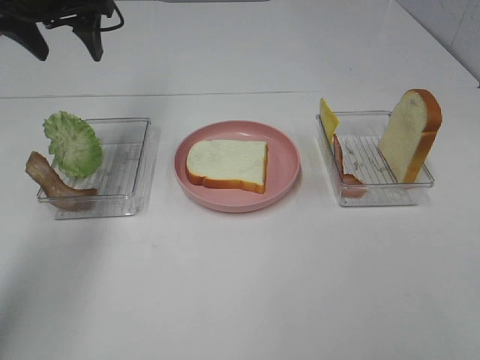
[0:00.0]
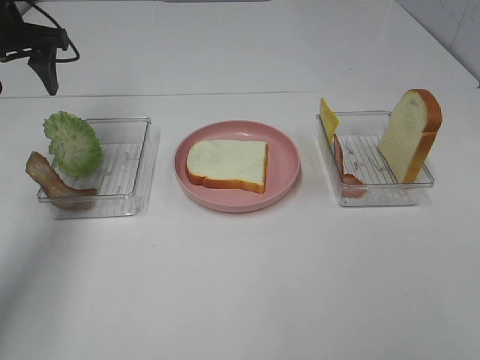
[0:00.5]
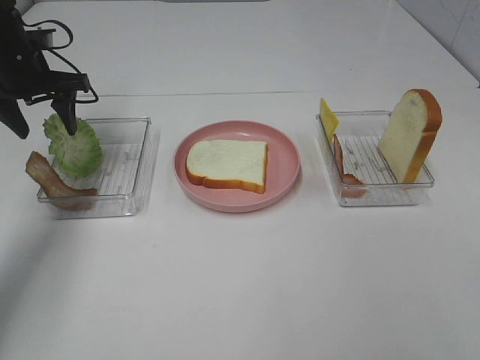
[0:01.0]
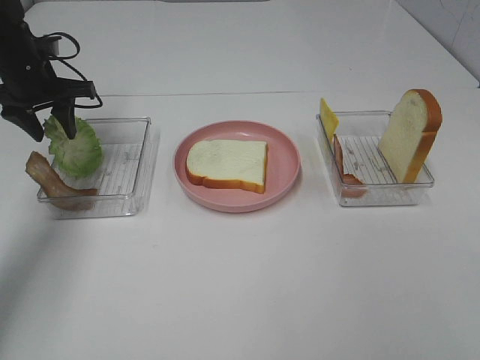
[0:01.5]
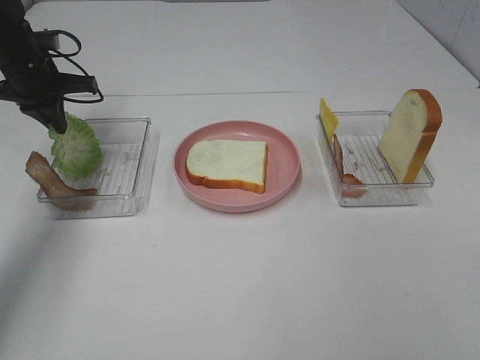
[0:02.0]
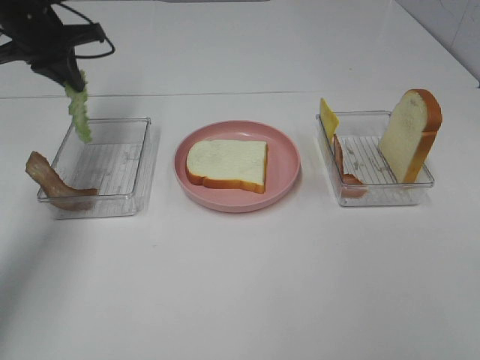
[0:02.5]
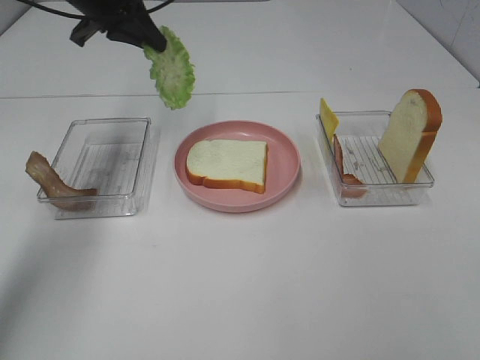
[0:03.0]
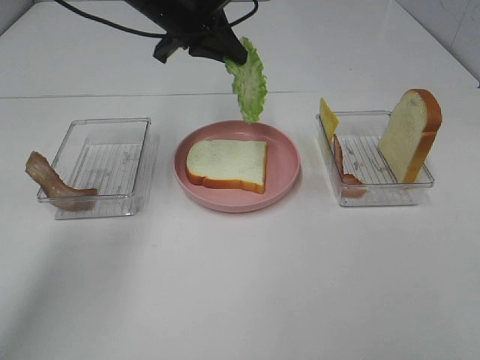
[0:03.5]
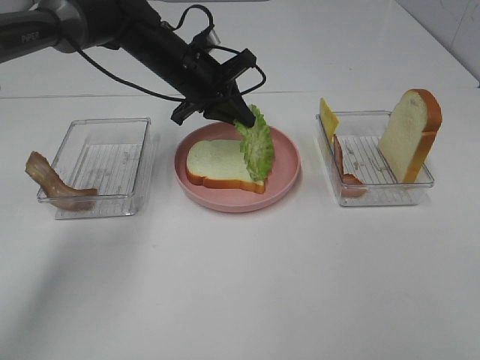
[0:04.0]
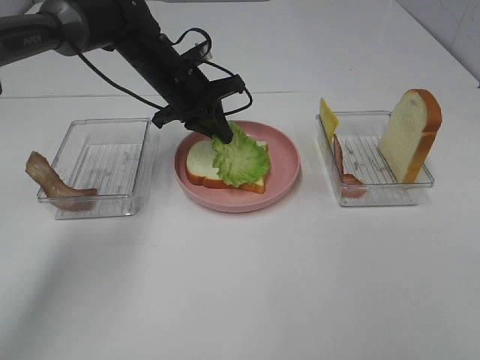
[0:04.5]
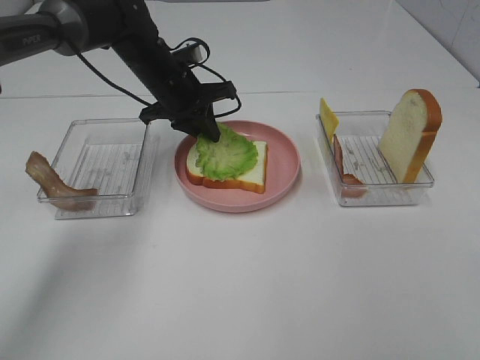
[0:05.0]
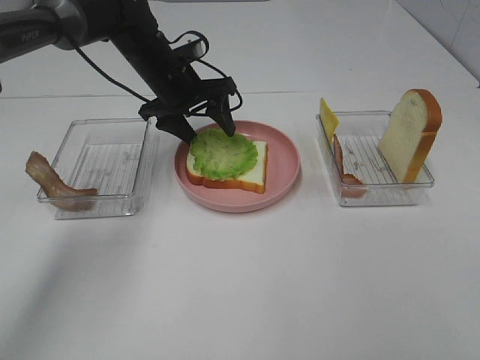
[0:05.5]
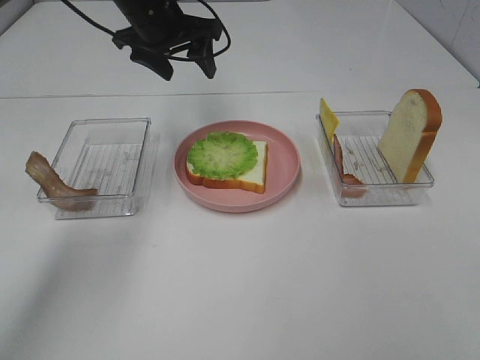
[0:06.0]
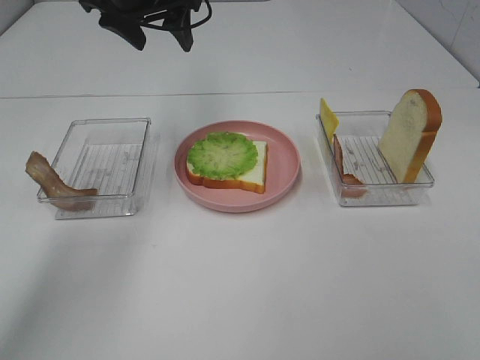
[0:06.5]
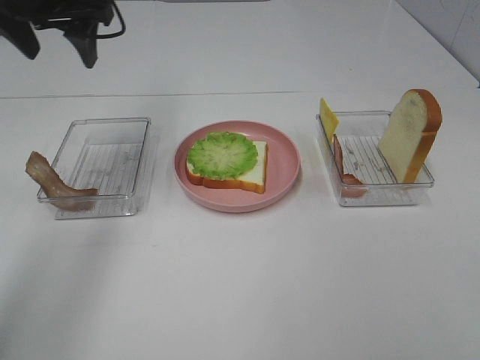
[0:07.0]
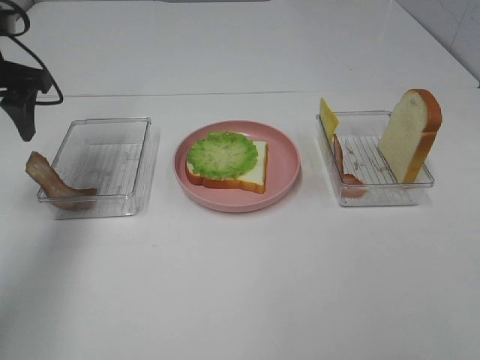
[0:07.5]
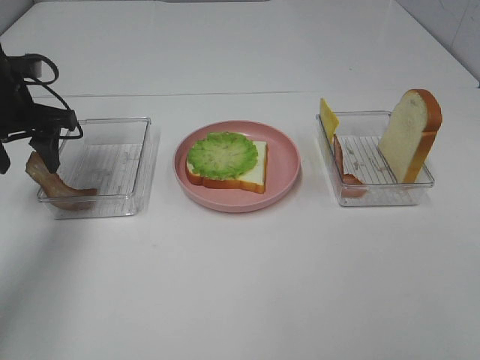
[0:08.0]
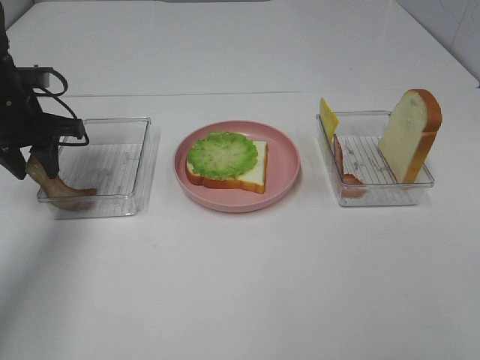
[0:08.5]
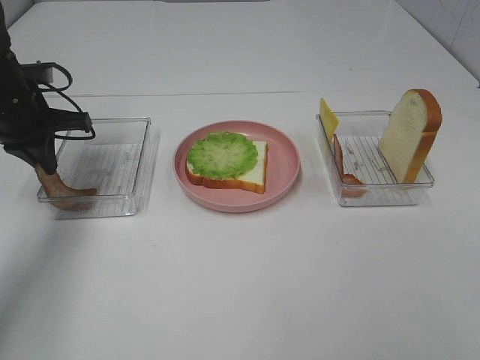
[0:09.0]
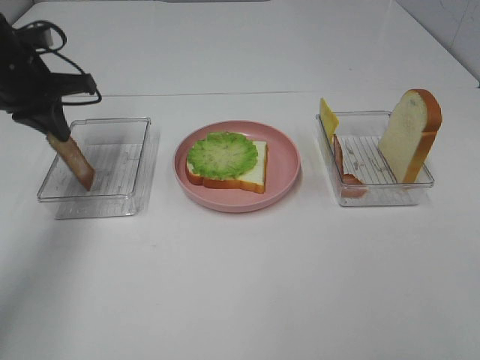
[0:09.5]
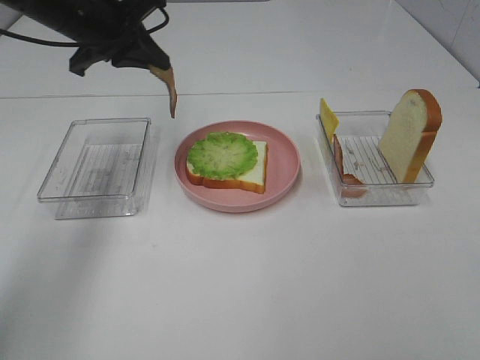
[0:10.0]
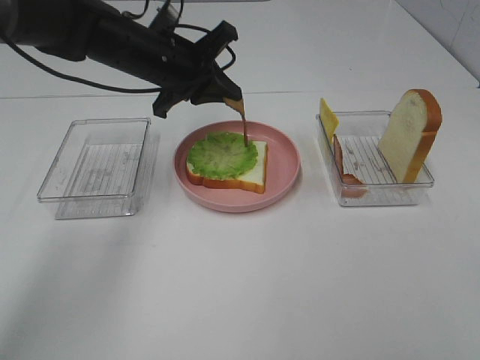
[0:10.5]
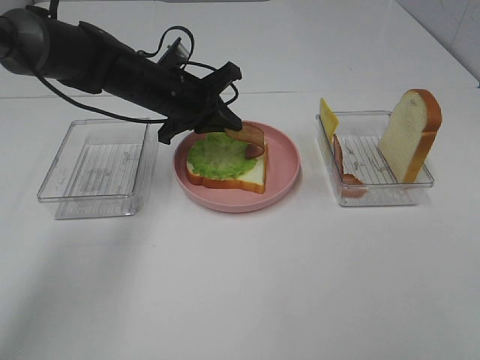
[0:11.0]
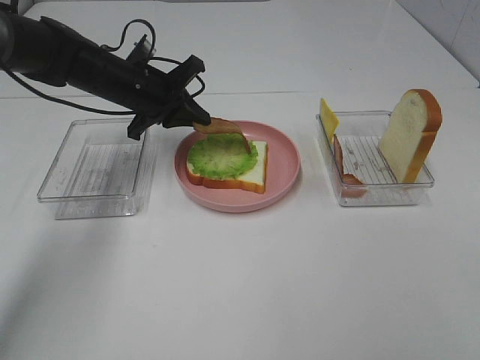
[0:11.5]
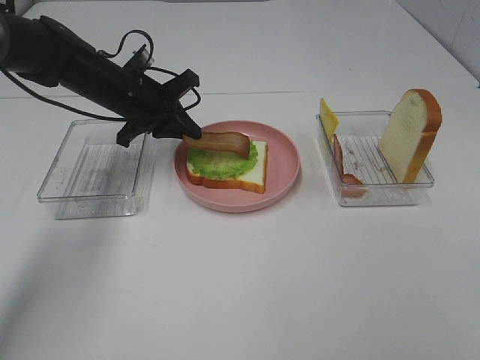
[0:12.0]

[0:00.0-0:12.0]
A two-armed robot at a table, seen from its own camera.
Task of the whole recording: Make sandwiches.
Step, 0.0 to 1.5 s: Left hand:grab the lettuce slice.
Step, 2.0 to 5.5 s: Left hand:place the lettuce slice on the bread slice.
Step, 6.0 to 9.0 s: Left hand:grab the bacon.
0.0 to 2.0 s: The left gripper is displaced downward and to the left by approximately 15 cm, and closes up.
2.0 to 4.0 s: The left gripper heads to the right, covering some 20 cm.
4.0 to 6.0 s: The left gripper is displaced upward by approximately 10 cm, and opens its fingers.
6.0 to 8.0 s: The left gripper goes about 20 cm to the left and backward.
8.0 to 10.0 s: The left gripper moves to the right and upward, some 15 cm, and closes.
10.0 to 12.0 s: The left gripper heads downward, covering some 10 cm.

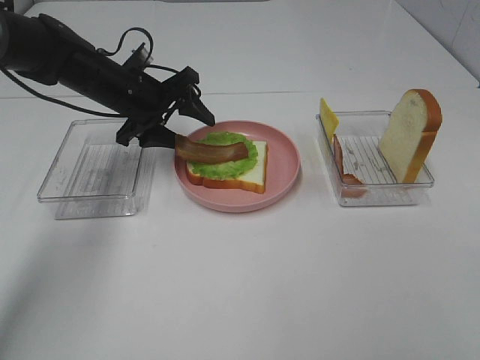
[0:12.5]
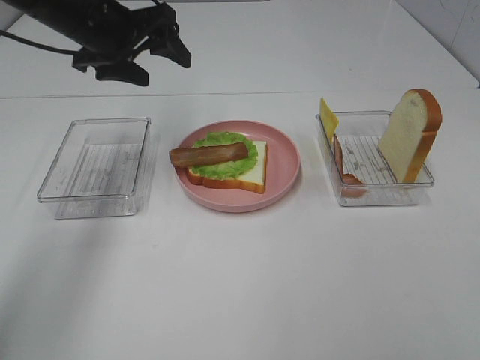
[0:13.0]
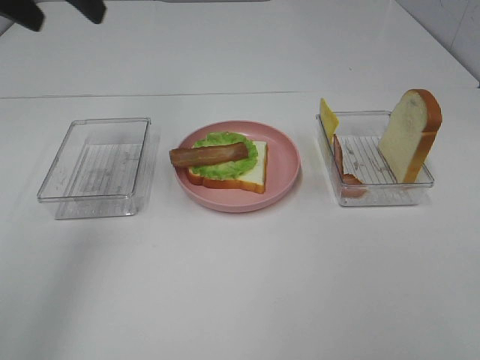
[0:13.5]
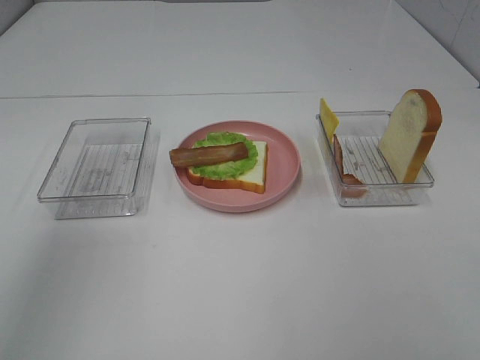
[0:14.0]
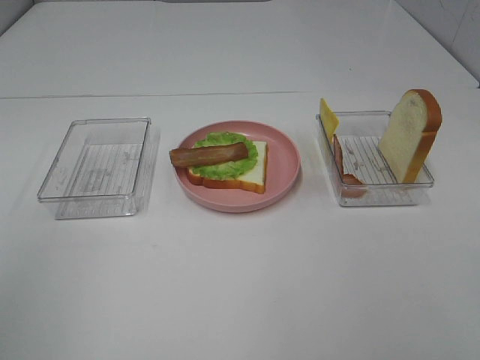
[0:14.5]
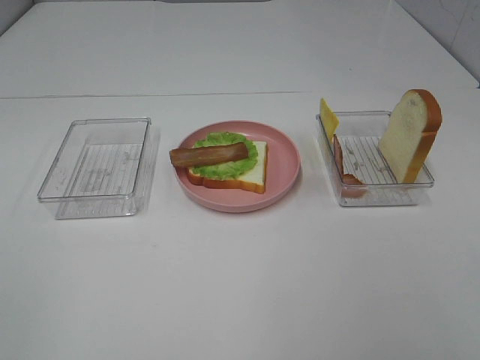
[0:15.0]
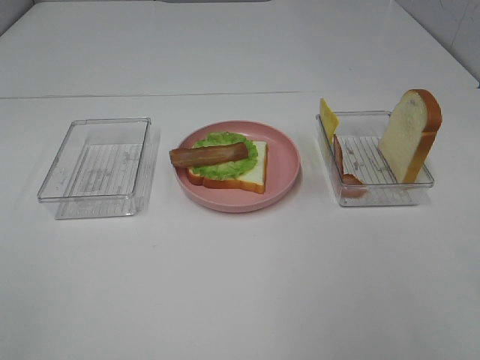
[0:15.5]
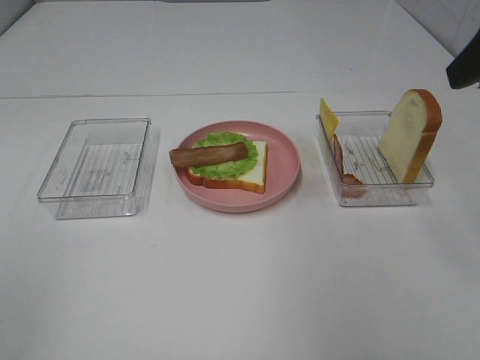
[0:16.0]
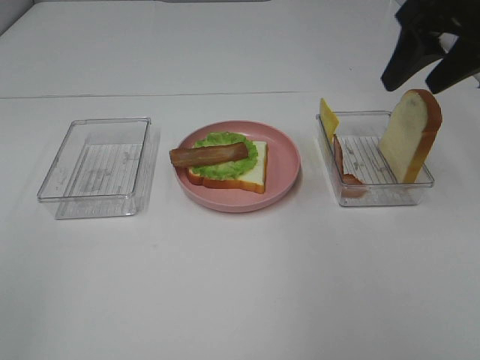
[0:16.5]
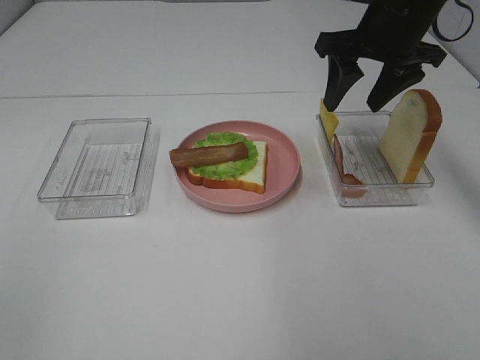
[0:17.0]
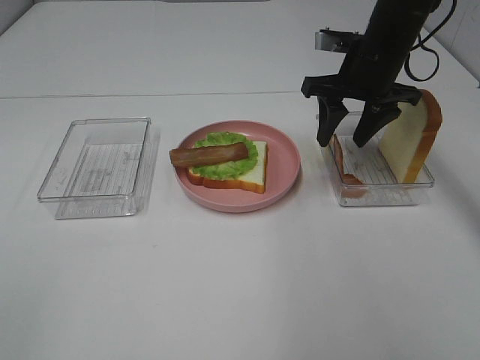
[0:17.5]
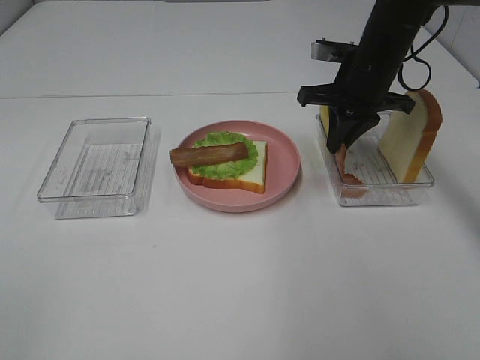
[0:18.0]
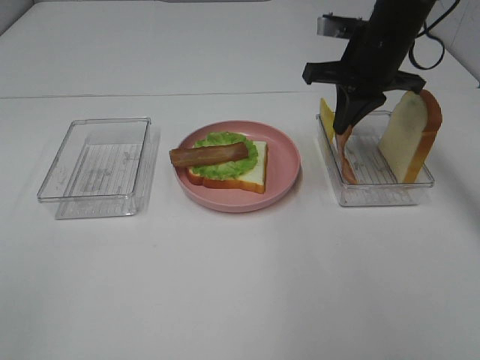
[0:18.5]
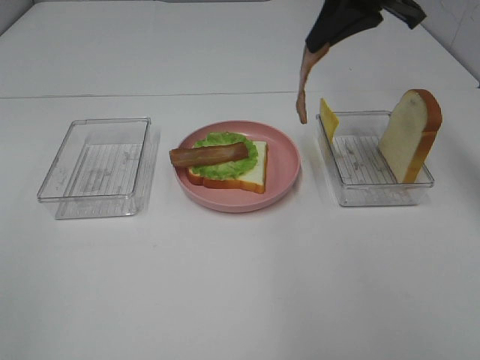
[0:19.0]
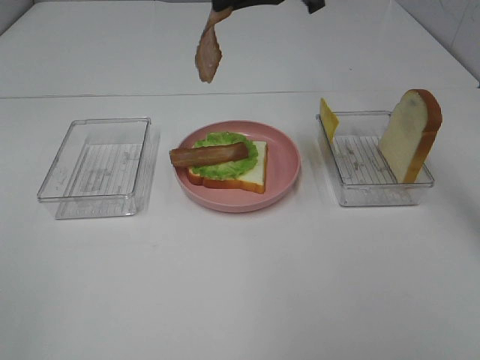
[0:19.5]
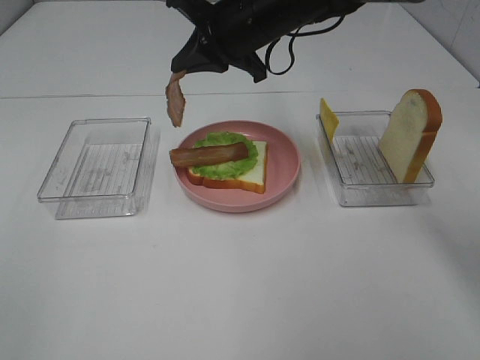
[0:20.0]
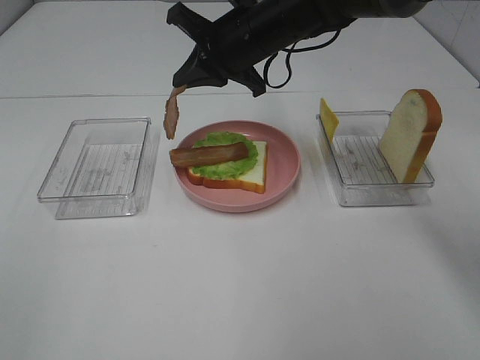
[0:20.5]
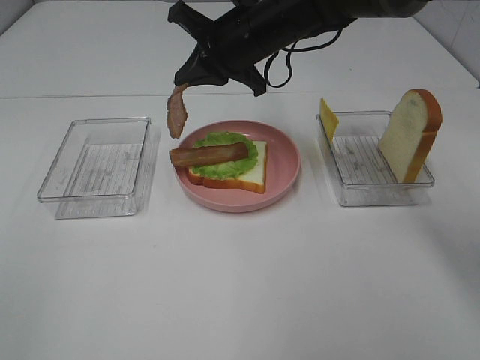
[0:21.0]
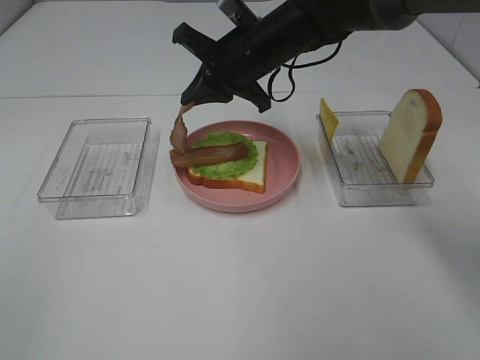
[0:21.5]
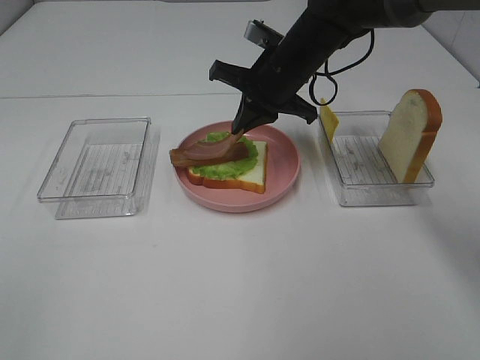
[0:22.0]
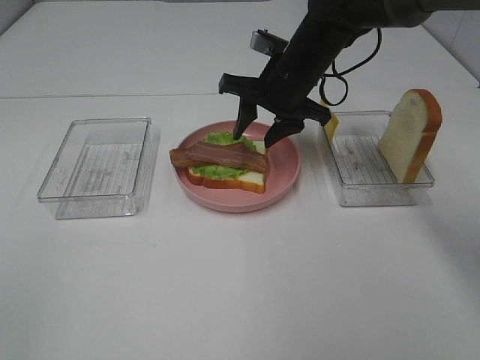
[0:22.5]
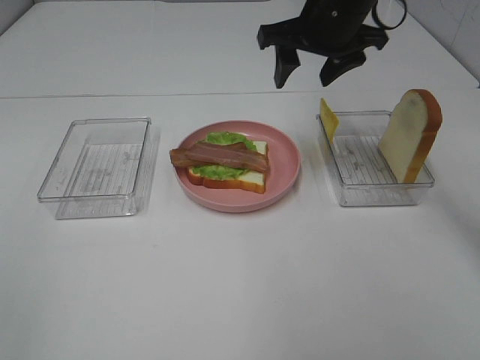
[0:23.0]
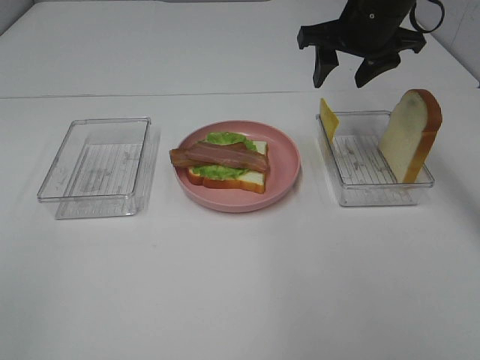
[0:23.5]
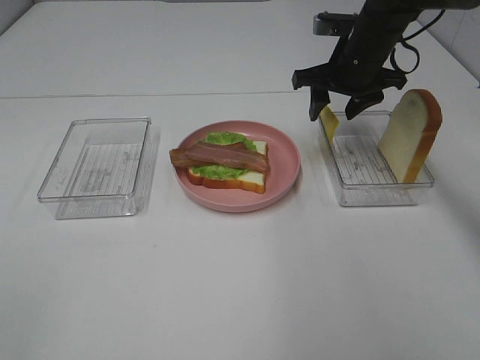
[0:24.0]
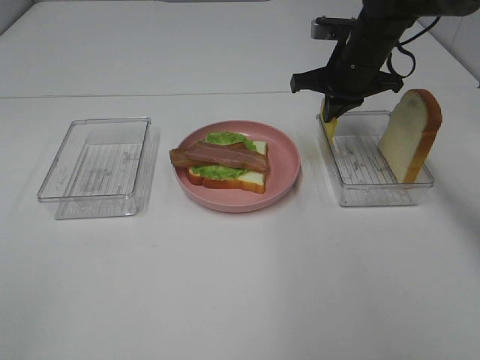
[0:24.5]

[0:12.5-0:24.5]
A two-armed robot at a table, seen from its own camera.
Task of the whole recording: Make sandwiches.
Step, 13.0 to 18.0 s: Right hand:grab the bacon.
Step, 18.5 to 22.5 s: Right hand:place bacon on bacon.
Step, 23.0 to 24.5 s: Right hand:grab the cheese slice.
12.5 to 14.5 s: The left gripper heads backward and upward, covering some 40 cm.
14.5 to 16.5 s: The right gripper heads forward, covering about 35 cm.
16.5 to 18.5 s: The right gripper shifts roughly 15 cm downward, forward and to the left, and closes up.
18.5 to 20.5 s: The right gripper goes approximately 15 cm to the left.
20.5 to 22.5 s: The right gripper shifts by roughly 5 cm, and opens its fingers.
22.5 to 24.5 s: The right gripper goes roughly 10 cm to the right, travels upward and back again, approximately 10 cm each way, and closes up.

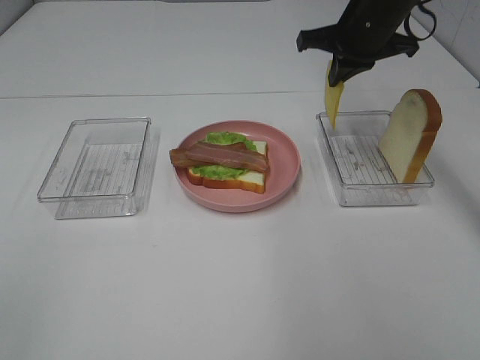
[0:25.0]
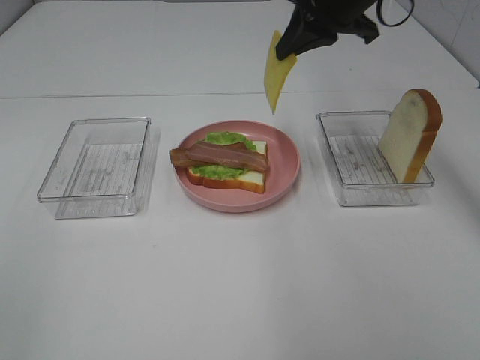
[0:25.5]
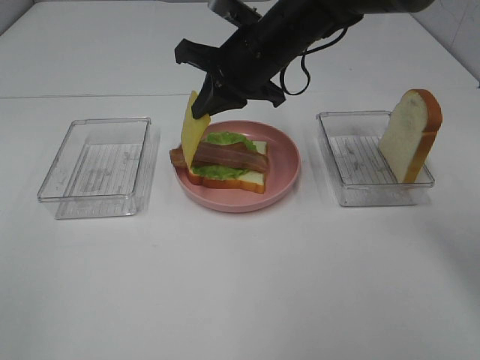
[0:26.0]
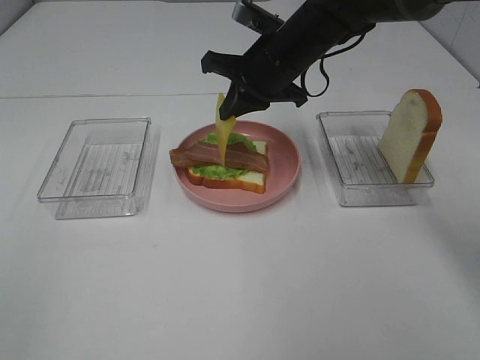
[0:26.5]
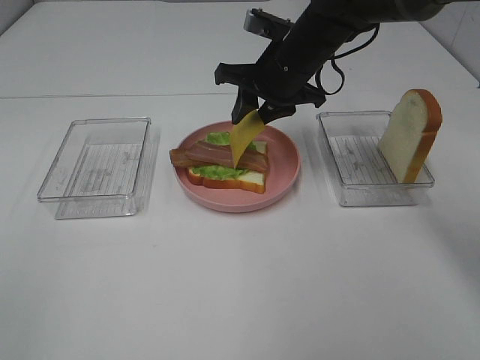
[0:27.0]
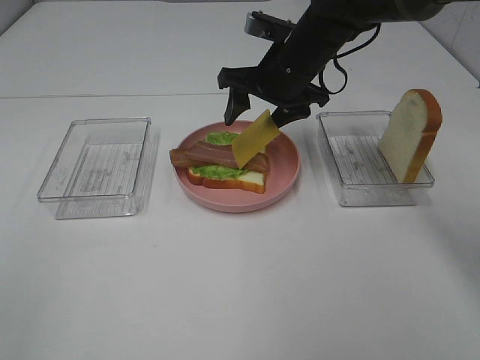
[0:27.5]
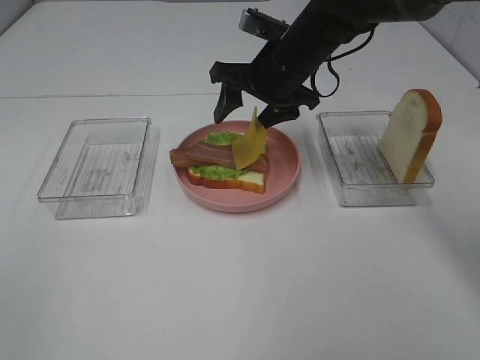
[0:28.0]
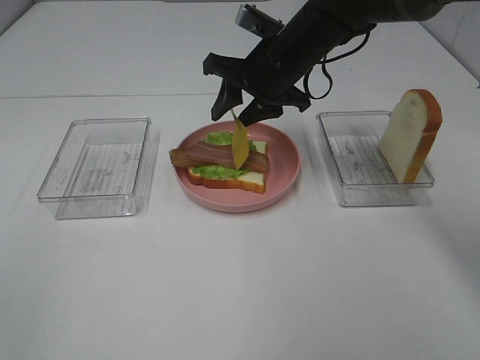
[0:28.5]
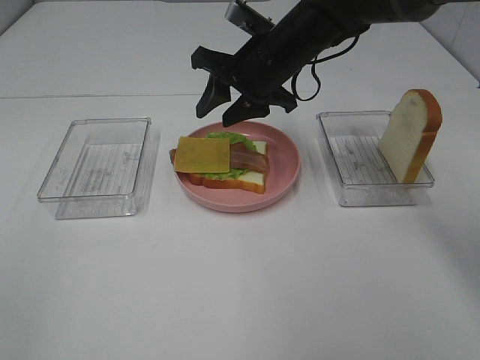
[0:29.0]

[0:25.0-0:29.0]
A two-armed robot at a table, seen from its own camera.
Task of the whole recording: Make sandwiches.
25.0 to 27.0 s: The right gripper shifts some 10 cm to the left and downward, and opens.
27.0 to 29.0 s: There are only small adjustments of the grippers.
